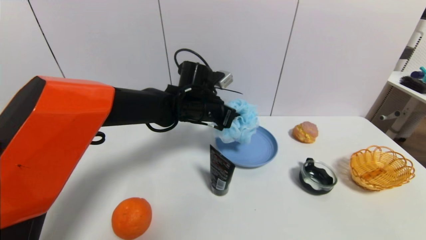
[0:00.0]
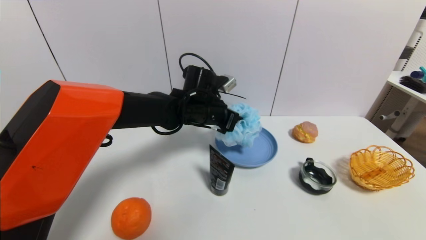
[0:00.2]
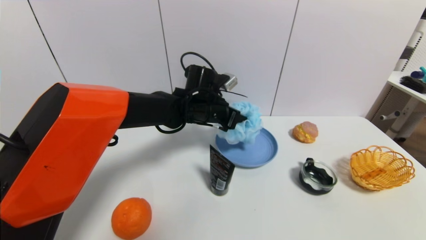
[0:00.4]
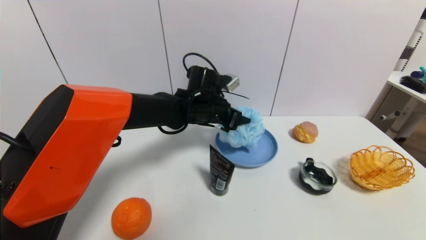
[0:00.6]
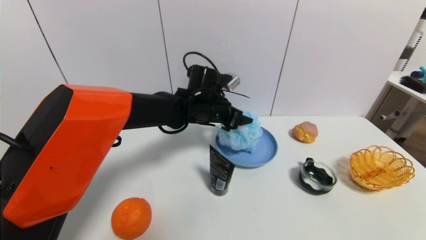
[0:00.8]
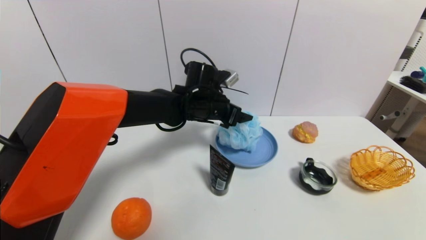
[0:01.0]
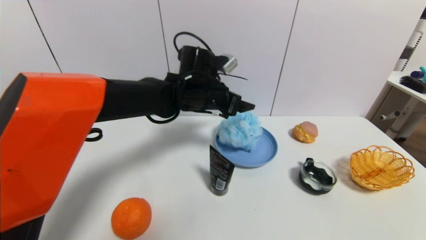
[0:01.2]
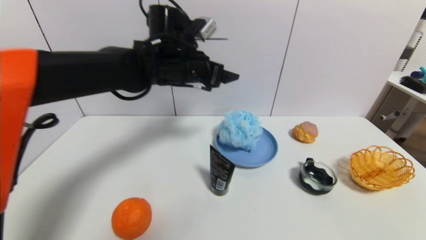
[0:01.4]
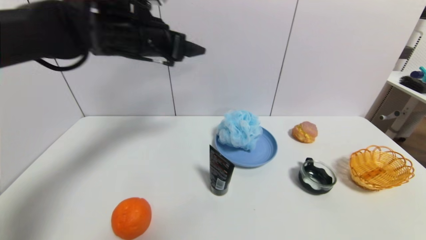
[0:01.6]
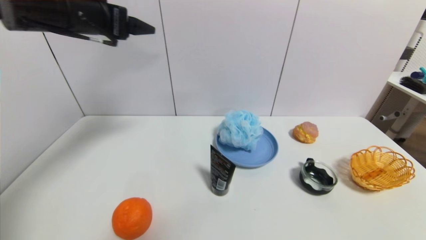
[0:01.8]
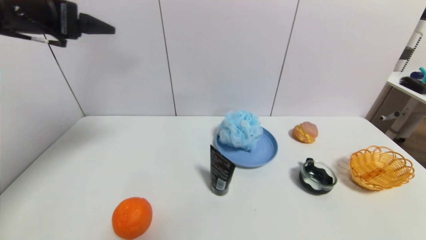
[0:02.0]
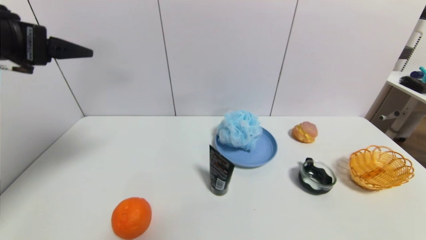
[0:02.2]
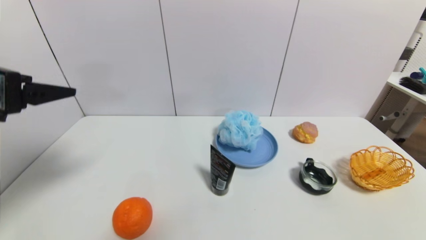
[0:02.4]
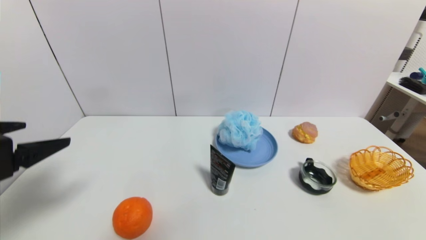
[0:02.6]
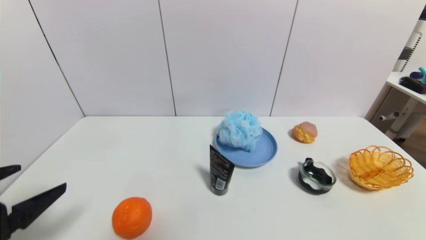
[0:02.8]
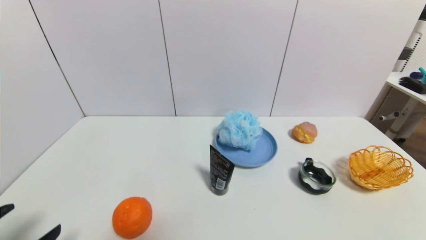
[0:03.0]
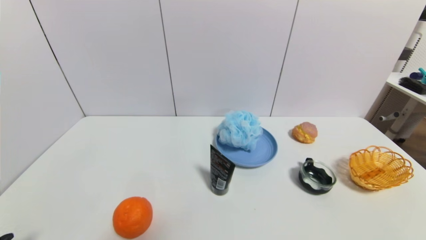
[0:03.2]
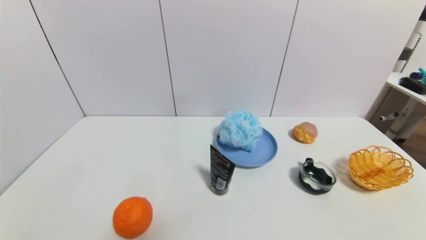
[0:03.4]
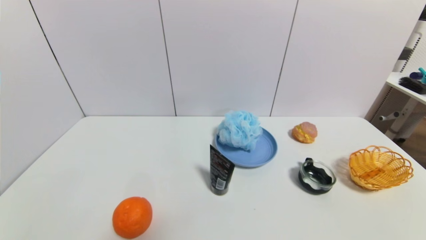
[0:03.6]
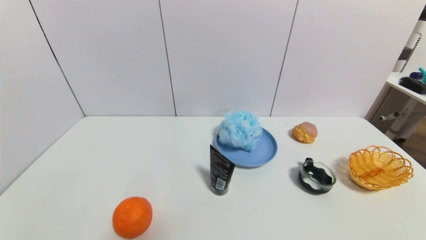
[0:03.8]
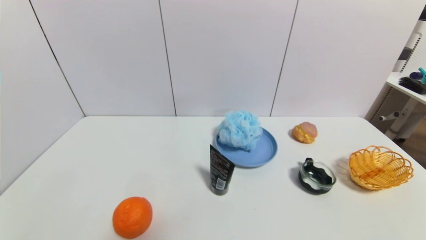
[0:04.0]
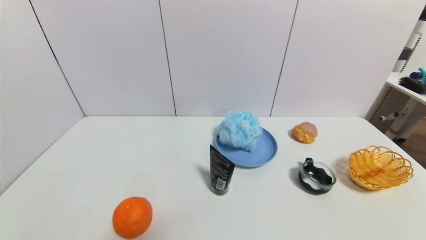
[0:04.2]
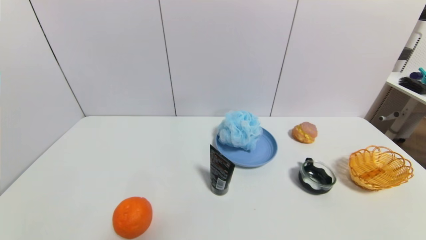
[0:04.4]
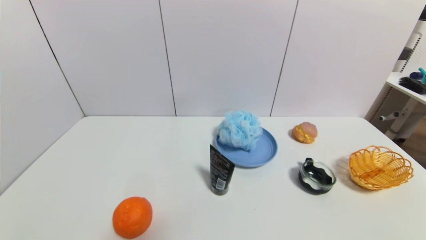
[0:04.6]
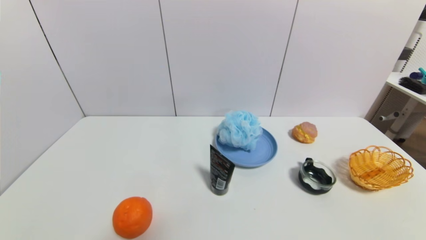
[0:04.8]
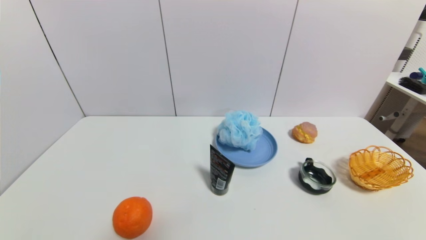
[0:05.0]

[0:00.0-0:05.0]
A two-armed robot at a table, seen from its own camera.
Task of the whole recording: use a gripper to pick the target object and place on the blue plate.
0:00.0 to 0:01.6: The left gripper travels upward and to the left by roughly 20 cm, and opens.
0:01.6 to 0:03.4: The left gripper is displaced backward, downward and to the left by roughly 50 cm.
